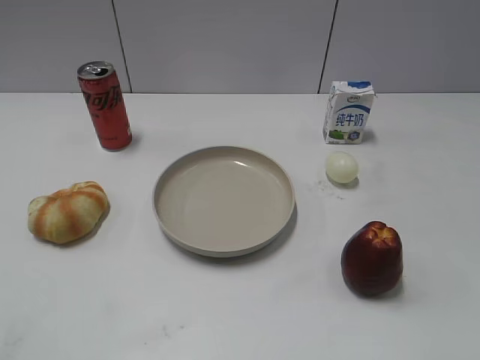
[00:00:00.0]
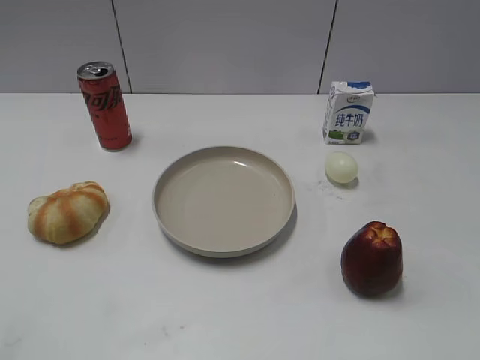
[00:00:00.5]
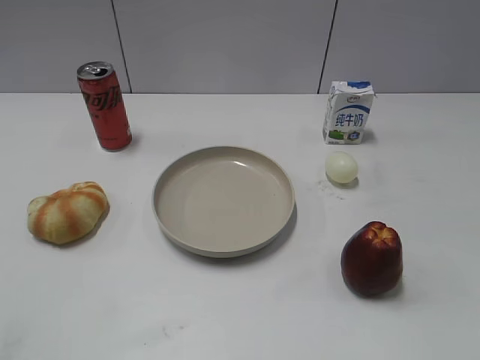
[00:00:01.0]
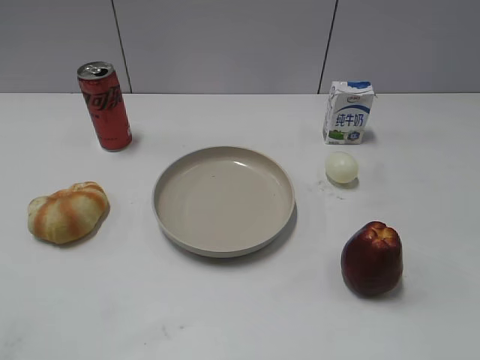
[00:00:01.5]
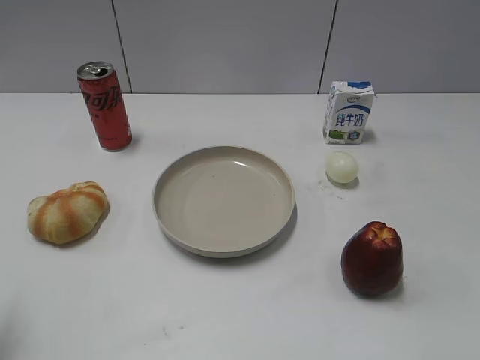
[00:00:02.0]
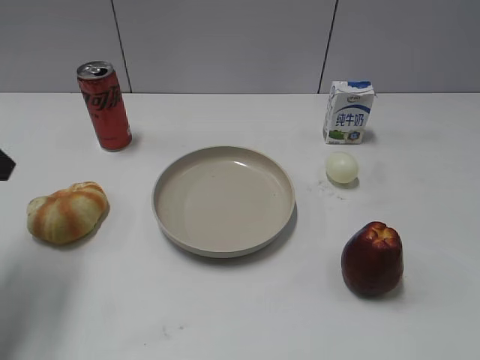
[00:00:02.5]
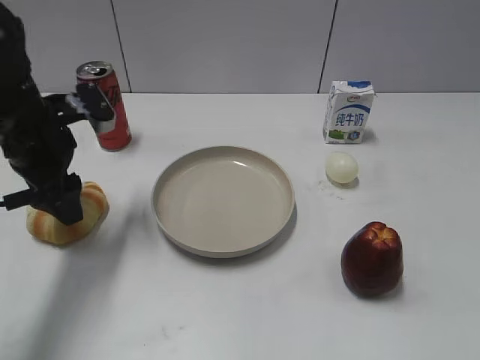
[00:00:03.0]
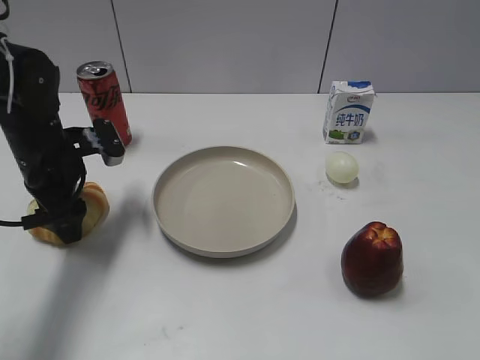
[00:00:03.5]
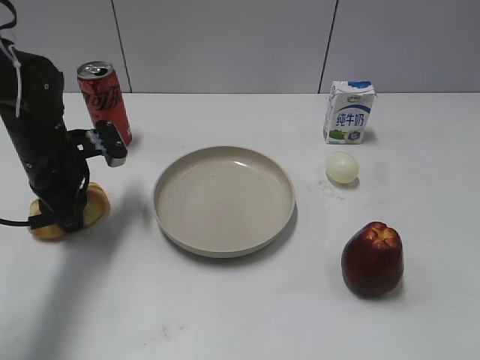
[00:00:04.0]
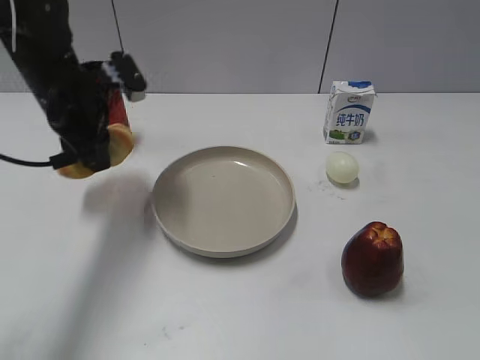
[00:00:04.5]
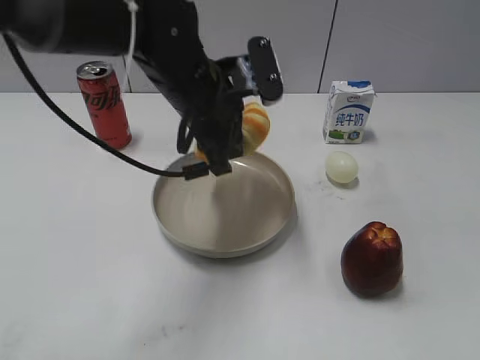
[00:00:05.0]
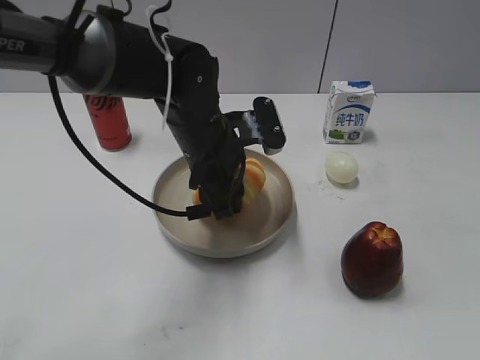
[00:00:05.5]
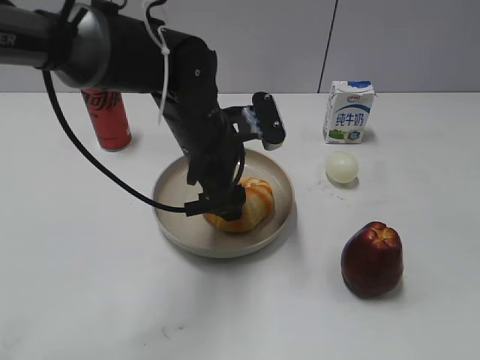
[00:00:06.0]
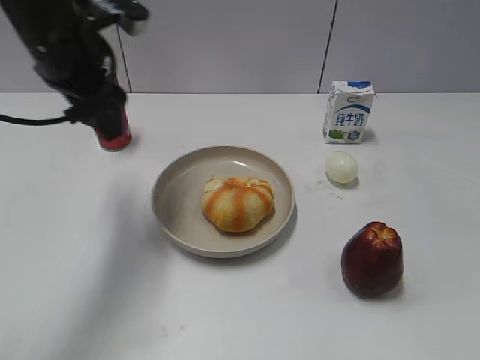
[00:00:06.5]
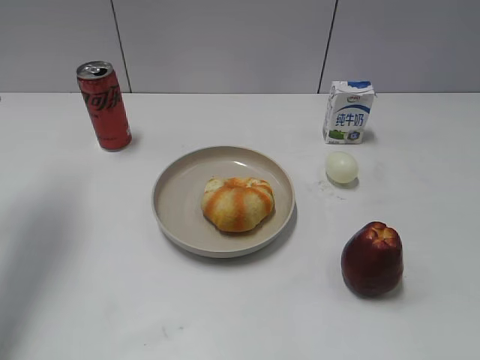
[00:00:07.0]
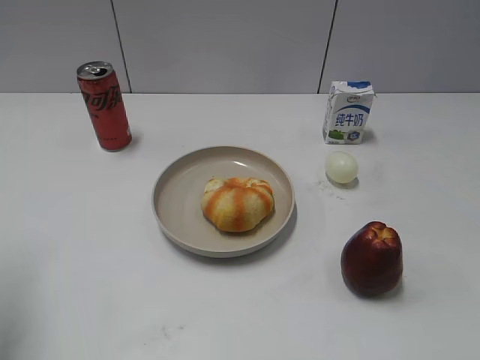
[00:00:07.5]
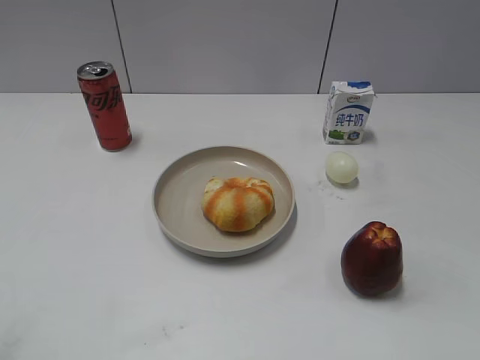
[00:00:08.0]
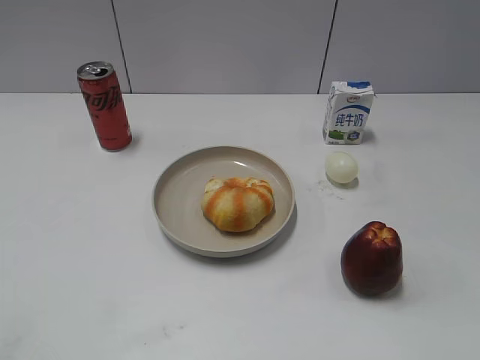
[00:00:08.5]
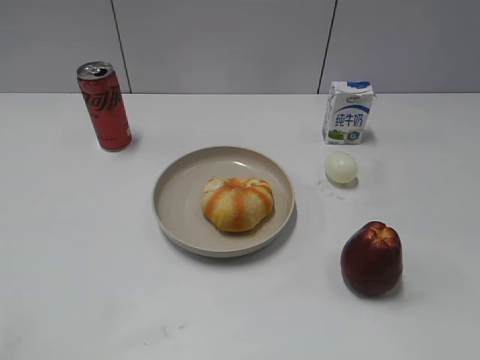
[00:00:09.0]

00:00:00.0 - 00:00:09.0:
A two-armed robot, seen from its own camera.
Step, 00:00:01.5 - 00:00:04.0: Grasp the round bread with left gripper.
Step, 00:00:04.5 - 00:00:06.0: Place the round bread on the plate with left gripper.
00:00:02.0 - 00:00:04.5: The left gripper shifts approximately 30 cm forward and to the right, and closes.
00:00:04.5 - 00:00:07.0: The left gripper is displaced to the left and upward by some 15 cm, and opens its fingers.
00:00:07.0 - 00:00:09.0: The left gripper heads backward, covering roughly 30 cm.
